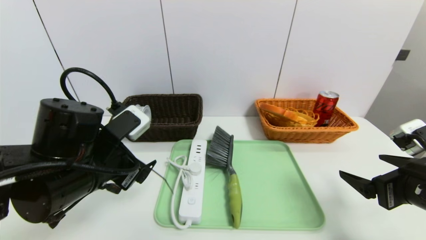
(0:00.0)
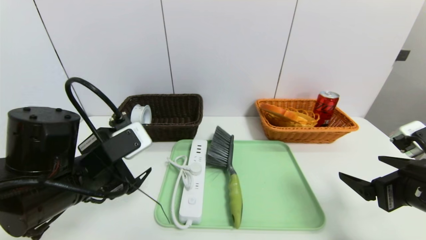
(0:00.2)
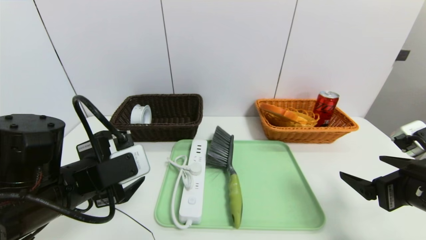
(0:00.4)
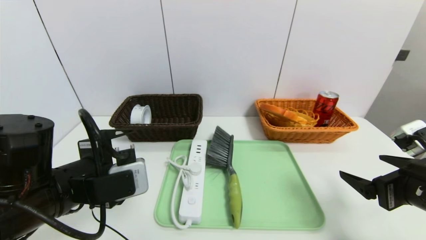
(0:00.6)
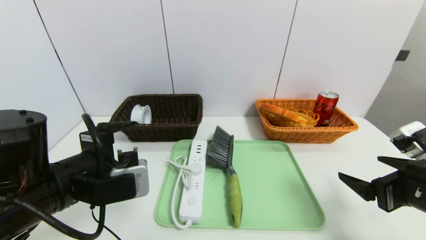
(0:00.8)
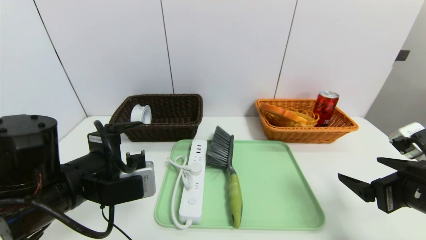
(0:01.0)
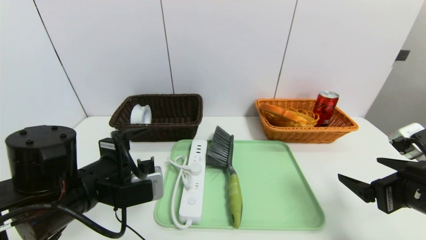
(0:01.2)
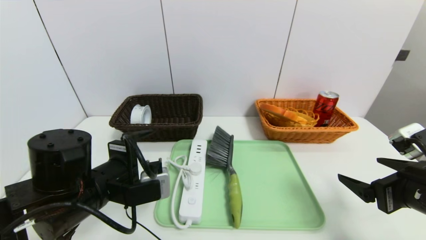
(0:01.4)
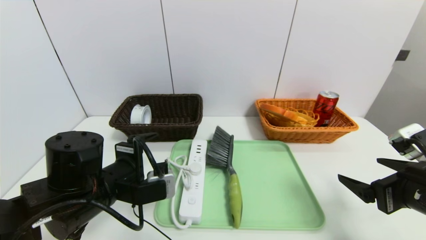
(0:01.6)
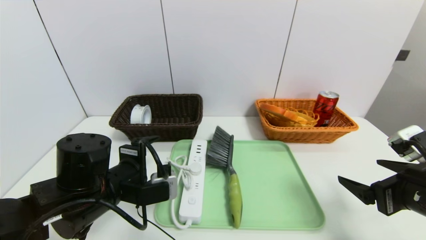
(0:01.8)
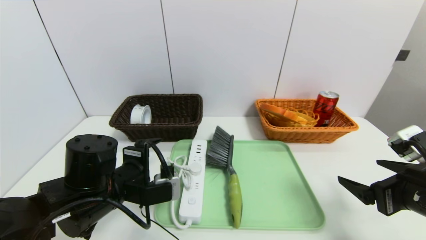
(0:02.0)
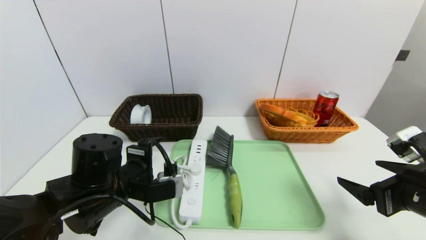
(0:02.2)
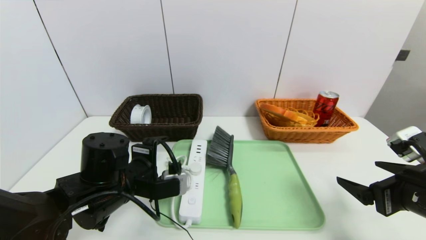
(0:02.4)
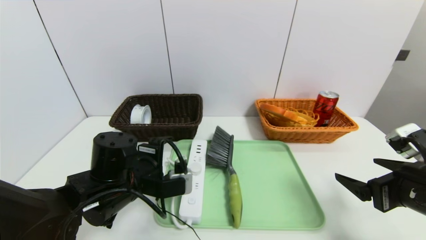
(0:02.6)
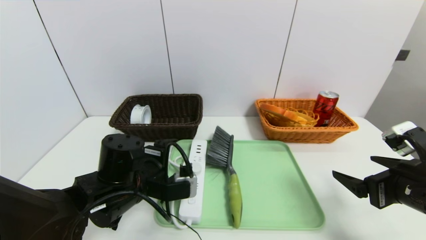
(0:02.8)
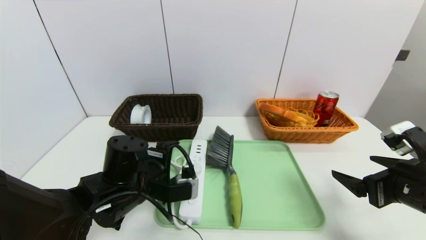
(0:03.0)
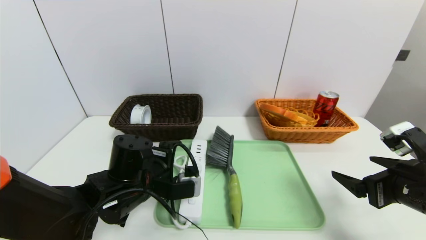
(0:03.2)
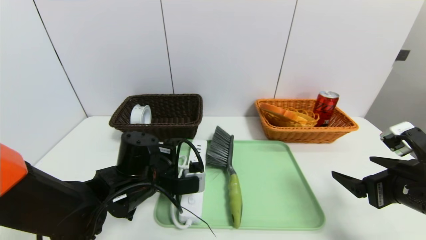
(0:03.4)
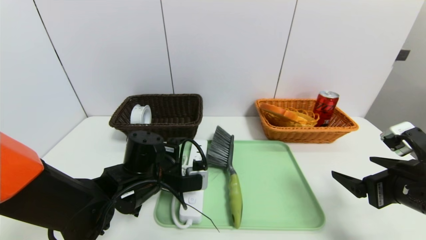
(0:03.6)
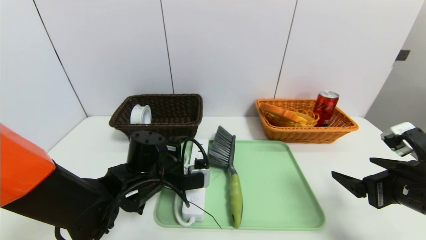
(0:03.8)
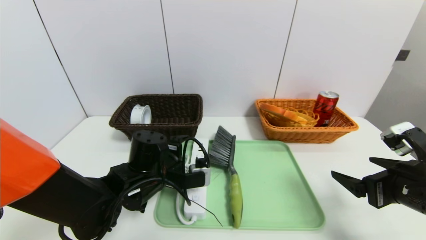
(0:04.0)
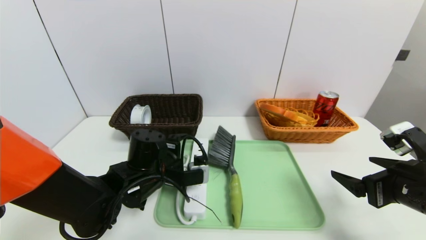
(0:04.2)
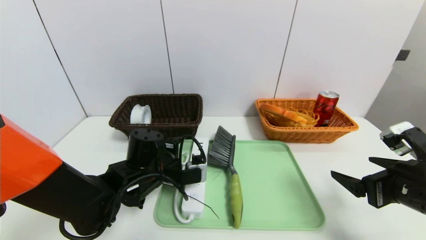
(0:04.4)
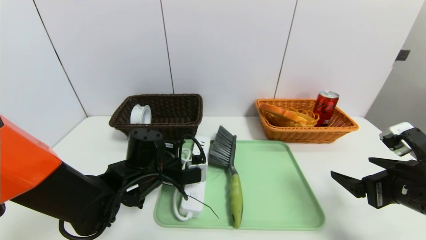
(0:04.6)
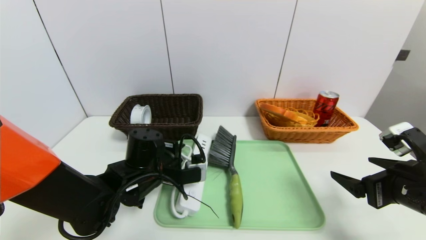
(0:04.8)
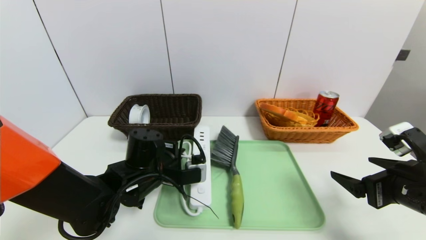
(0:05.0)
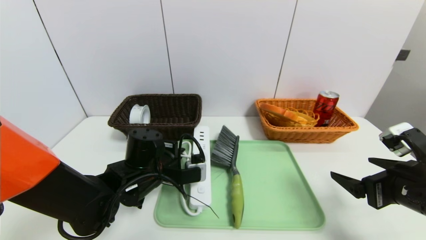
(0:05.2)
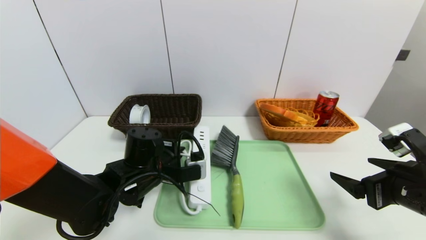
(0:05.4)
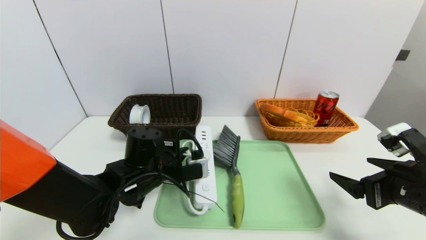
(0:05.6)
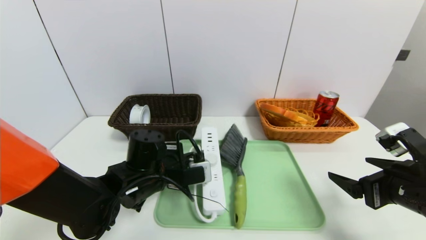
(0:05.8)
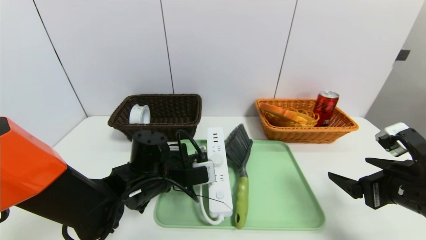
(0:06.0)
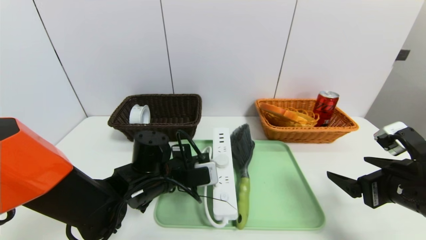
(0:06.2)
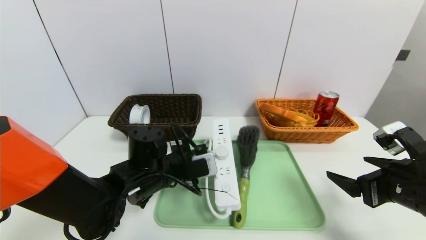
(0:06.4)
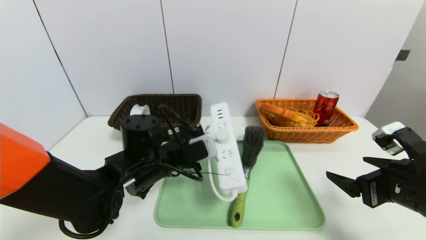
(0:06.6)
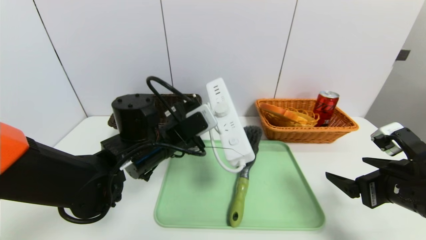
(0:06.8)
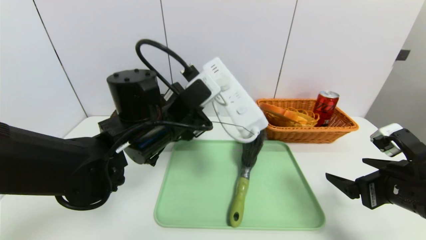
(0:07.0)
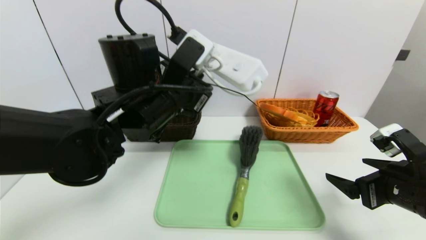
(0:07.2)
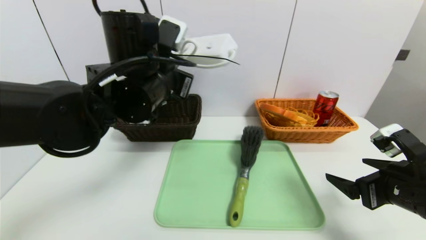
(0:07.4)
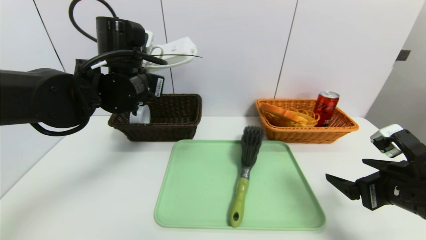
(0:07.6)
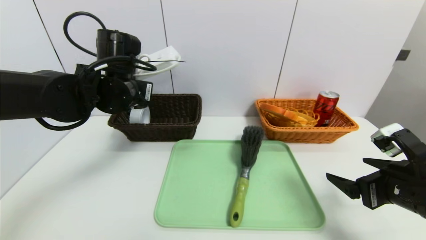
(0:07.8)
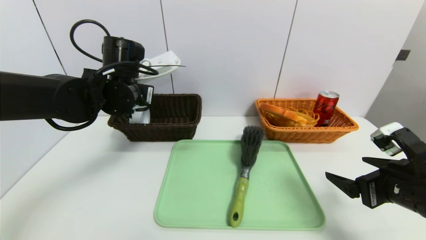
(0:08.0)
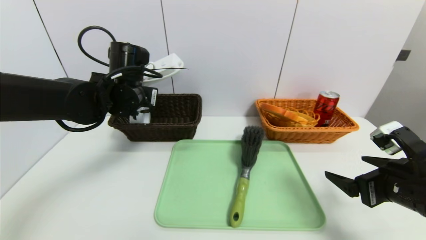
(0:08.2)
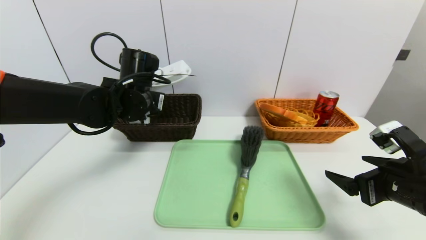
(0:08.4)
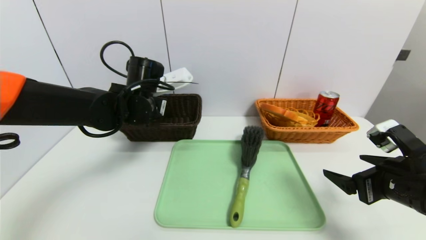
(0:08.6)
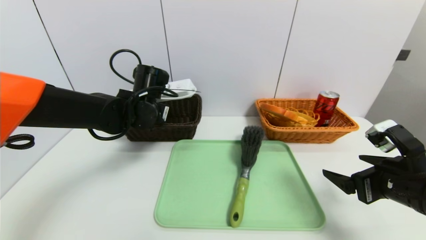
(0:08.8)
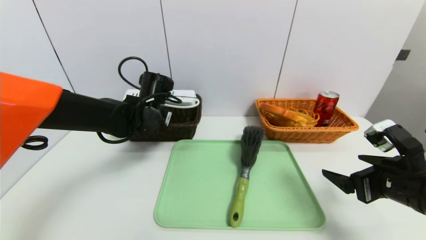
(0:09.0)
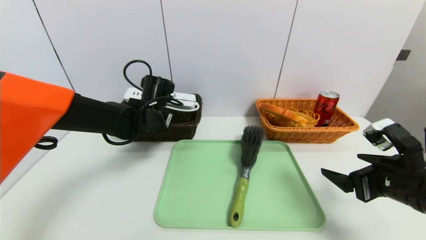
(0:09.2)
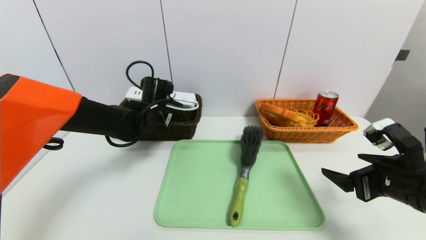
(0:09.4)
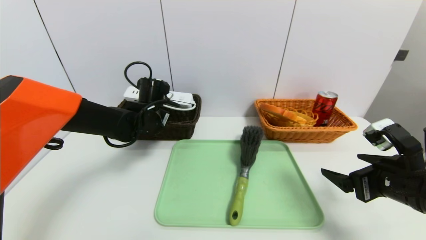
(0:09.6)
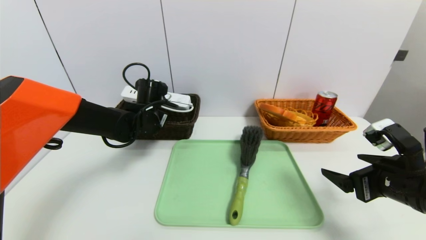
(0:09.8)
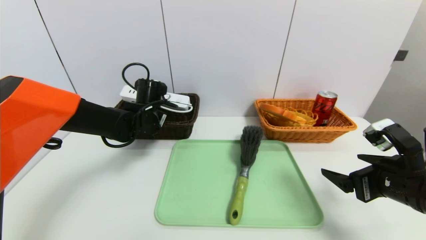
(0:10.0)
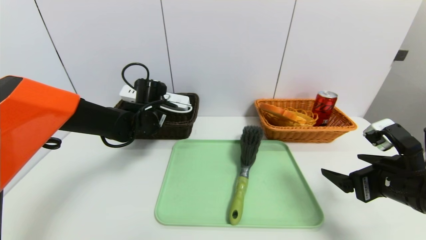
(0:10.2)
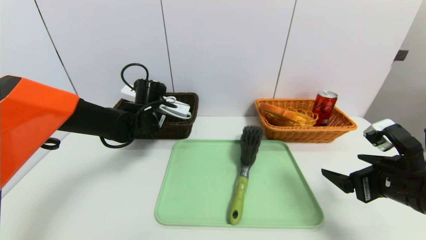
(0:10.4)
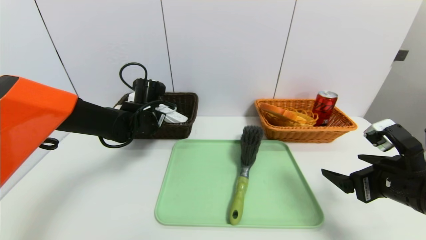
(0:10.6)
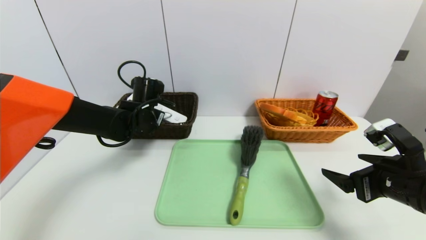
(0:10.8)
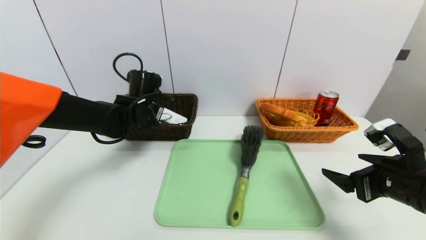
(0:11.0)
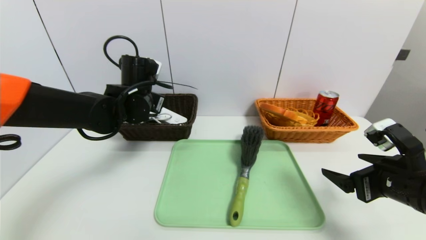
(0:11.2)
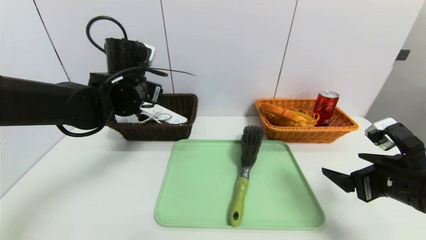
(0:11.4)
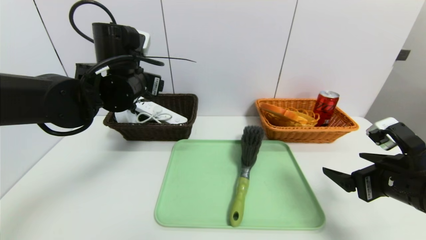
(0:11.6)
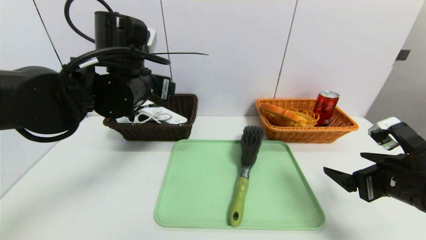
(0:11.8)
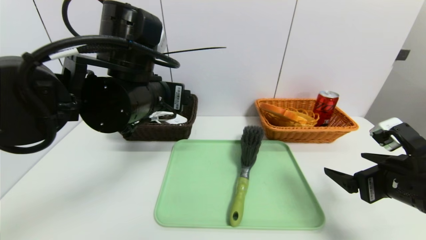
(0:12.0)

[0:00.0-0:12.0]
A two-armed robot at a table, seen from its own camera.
Task of the whole recording: place the food in the right basket with the right gripper, and place the non food items in the left basket with the left gripper.
Step, 0:00.0 to 0:11.6: Grasp the power strip and put it in the left basket.
0:01.6 to 0:03.0: The left gripper shifts by roughly 5 cm.
0:03.0 to 0:04.4: There are only small adjustments of the grippers.
0:04.4 to 0:06.0: The left gripper closes up.
0:06.0 to 0:07.6: The left gripper travels upward by approximately 15 cm.
0:07.6 to 0:09.0: The left gripper goes some 10 cm downward and forward.
0:09.0 to 0:10.4: The grippers make only small movements.
0:10.4 to 0:12.0: The left gripper heads backward and upward, covering approximately 20 cm, and opens up.

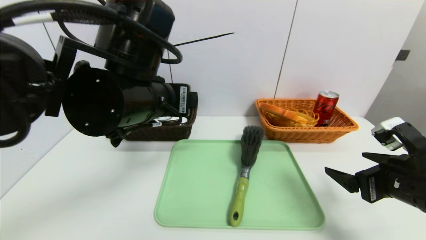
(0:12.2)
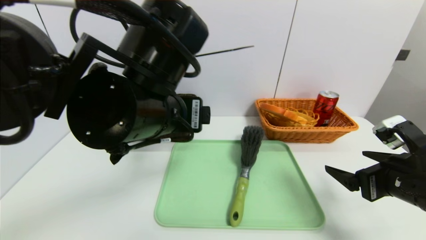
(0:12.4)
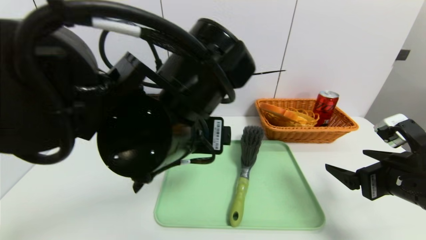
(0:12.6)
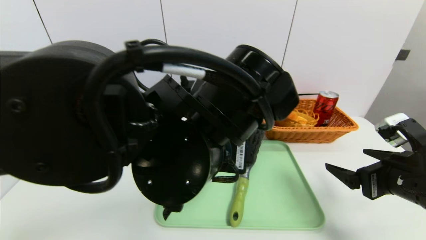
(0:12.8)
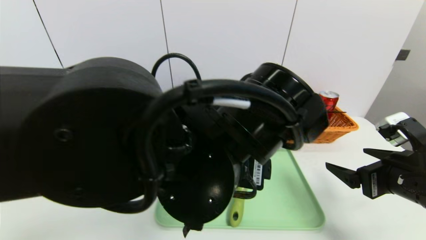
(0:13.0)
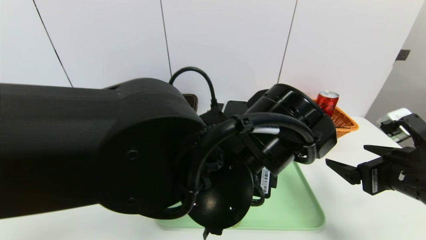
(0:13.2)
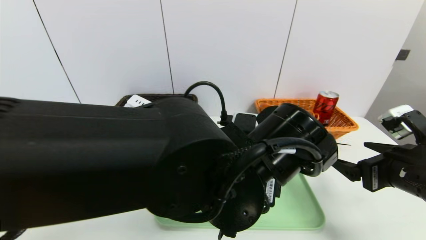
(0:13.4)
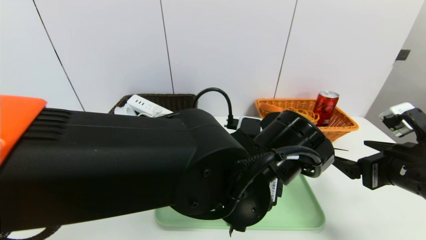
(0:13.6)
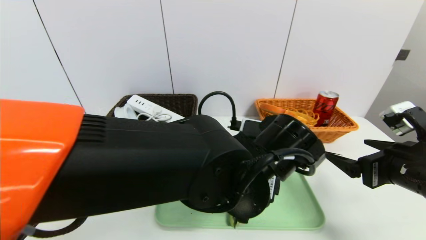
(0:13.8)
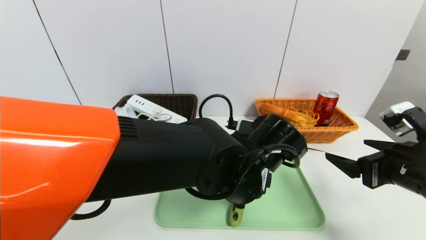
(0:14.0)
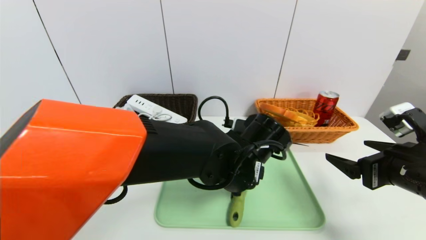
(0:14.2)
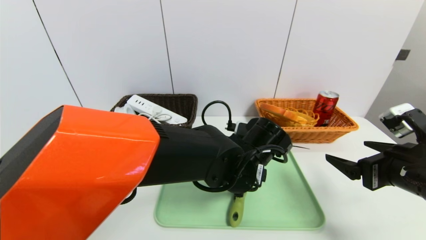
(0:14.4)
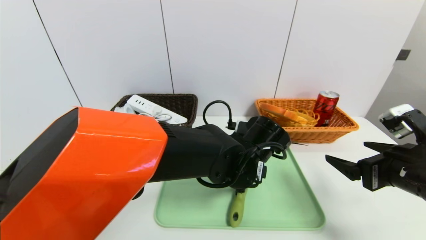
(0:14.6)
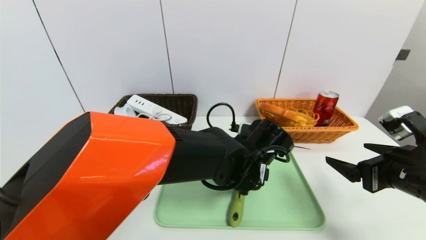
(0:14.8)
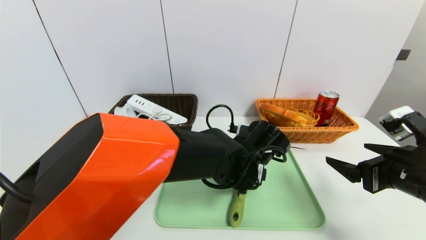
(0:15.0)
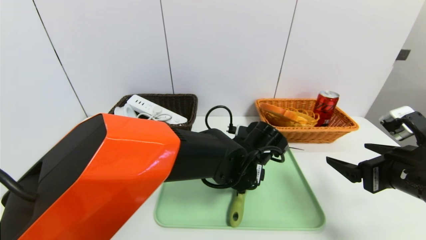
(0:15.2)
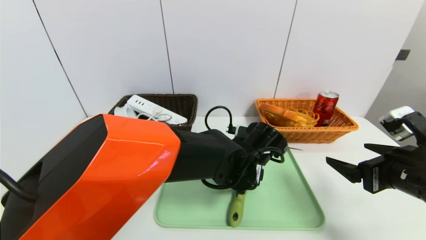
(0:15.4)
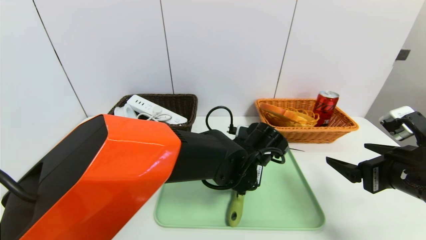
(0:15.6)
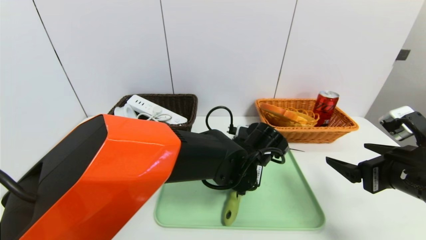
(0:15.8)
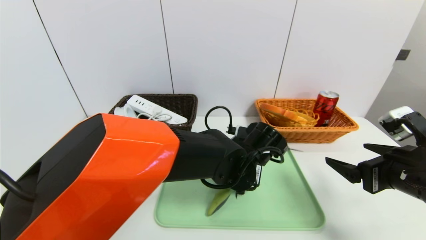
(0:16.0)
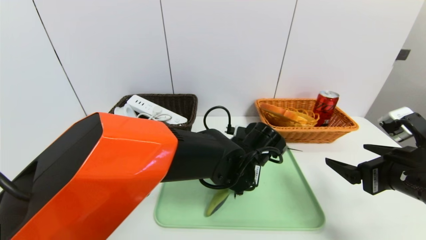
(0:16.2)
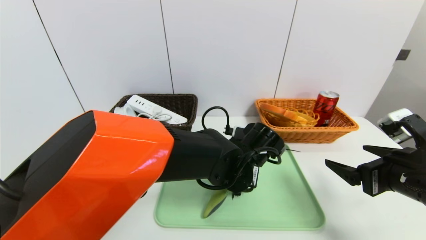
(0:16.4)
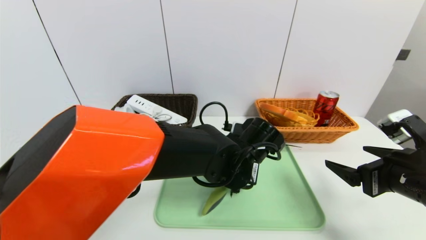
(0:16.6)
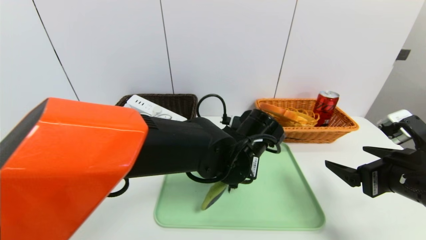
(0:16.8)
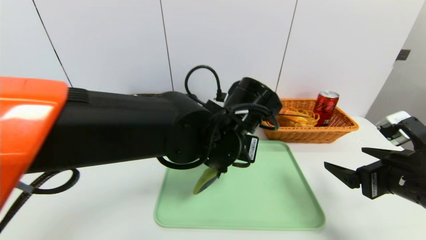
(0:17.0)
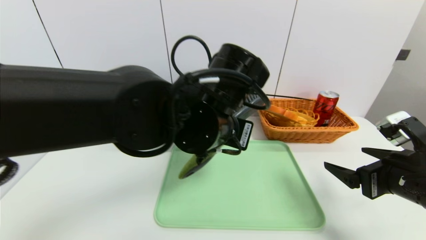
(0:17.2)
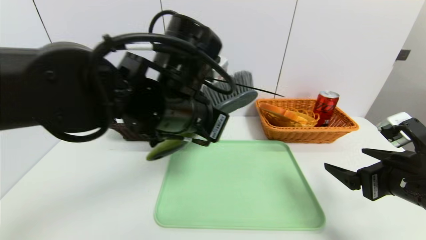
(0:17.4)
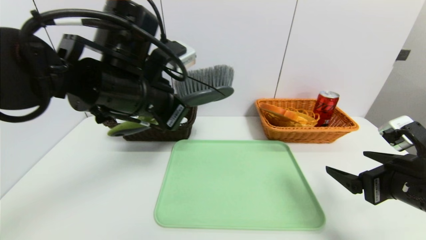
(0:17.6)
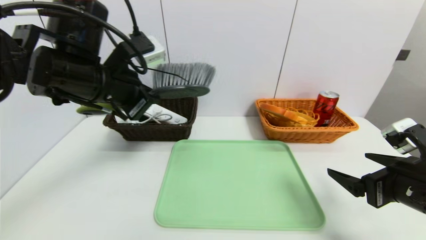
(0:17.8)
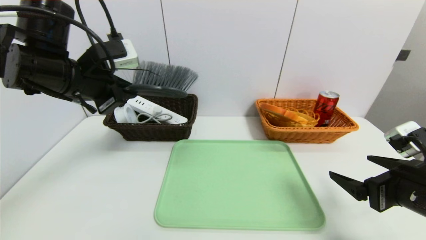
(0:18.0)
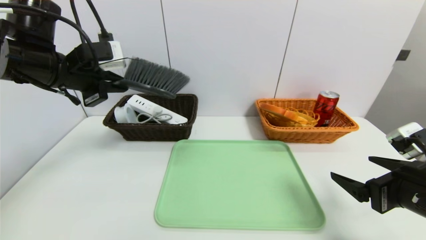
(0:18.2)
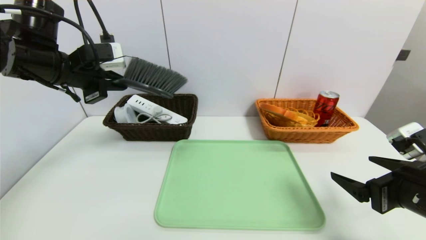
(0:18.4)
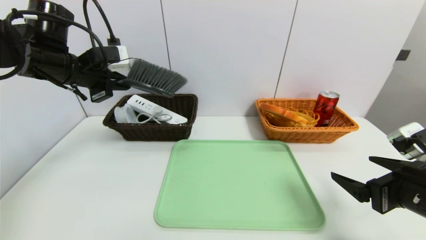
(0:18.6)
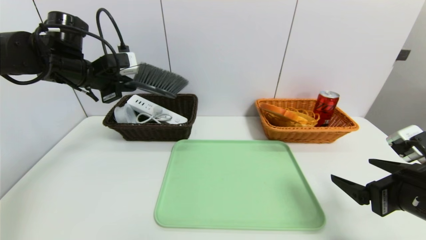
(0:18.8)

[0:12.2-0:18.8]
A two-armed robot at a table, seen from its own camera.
Task of the whole recording: place the food in the right basket with the right gripper, and place the non food items in the left basket with the left gripper.
0:12.2 to 0:13.8: The left gripper is displaced to the right and downward by about 15 cm.
0:13.8 to 0:15.4: The left gripper goes some 10 cm forward and downward.
0:15.4 to 0:17.2: The left gripper is displaced upward and to the left by some 15 cm, and closes.
0:17.2 to 0:18.8: The left gripper moves to the left and forward, roughly 30 cm.
